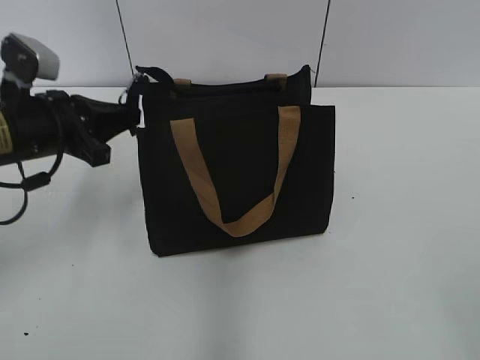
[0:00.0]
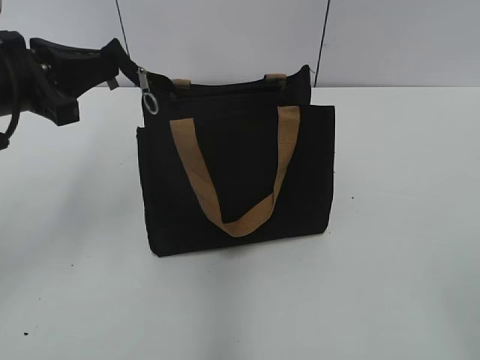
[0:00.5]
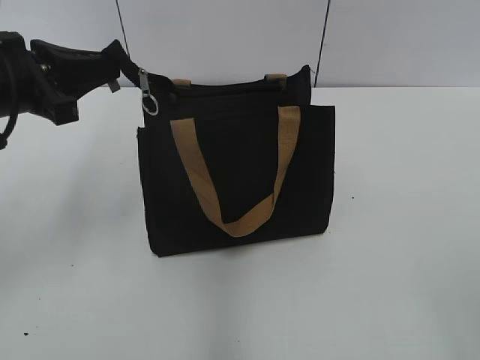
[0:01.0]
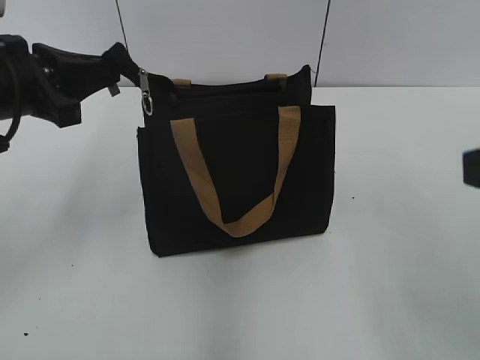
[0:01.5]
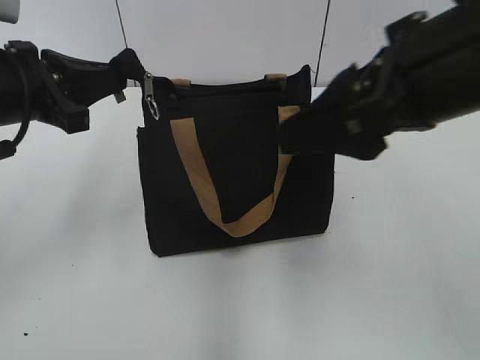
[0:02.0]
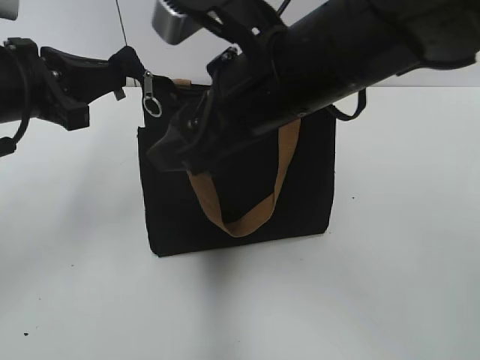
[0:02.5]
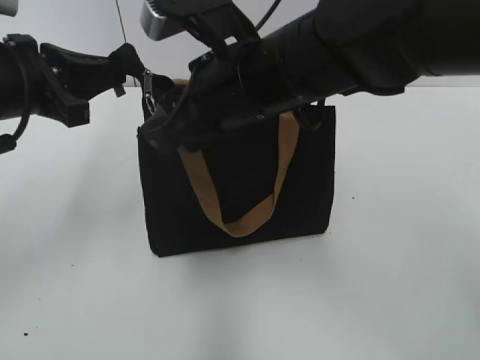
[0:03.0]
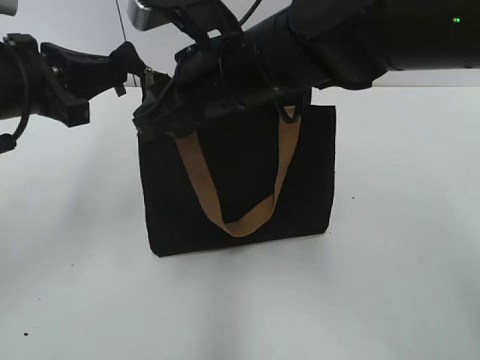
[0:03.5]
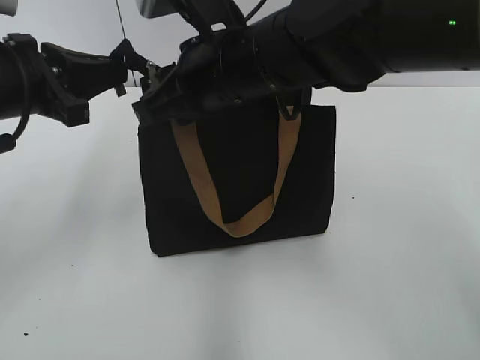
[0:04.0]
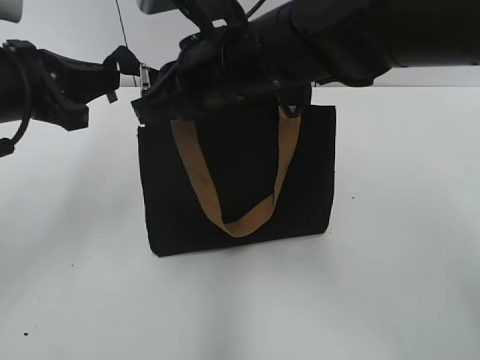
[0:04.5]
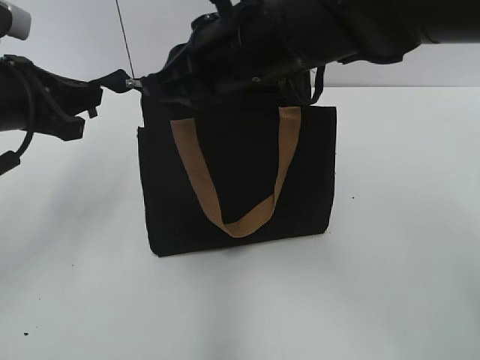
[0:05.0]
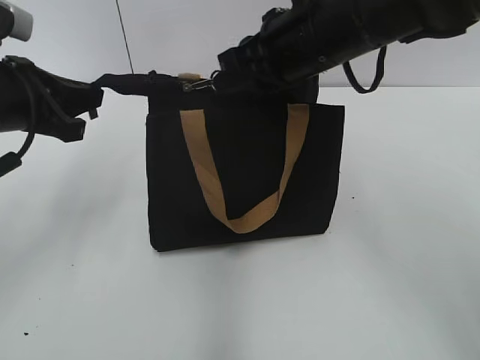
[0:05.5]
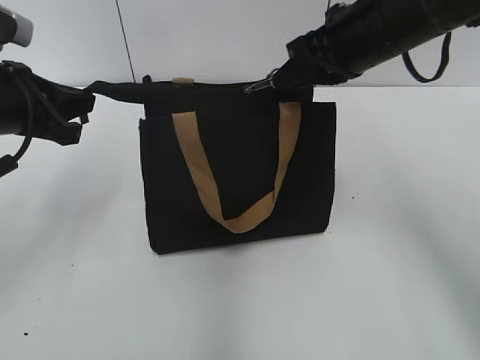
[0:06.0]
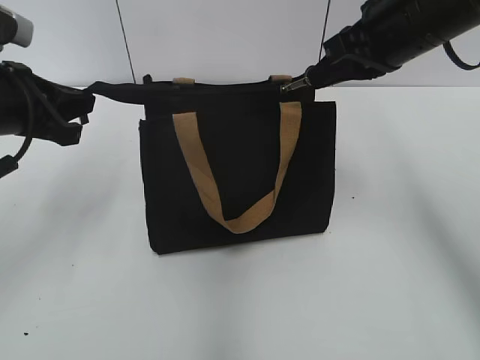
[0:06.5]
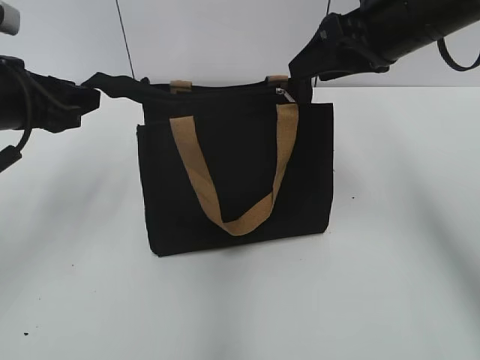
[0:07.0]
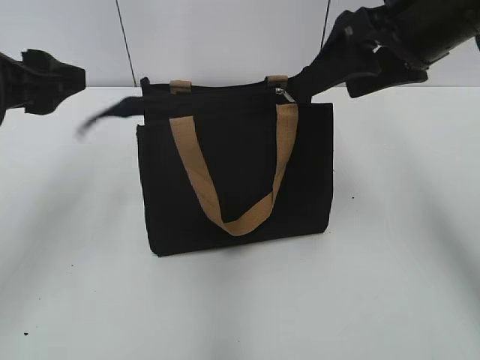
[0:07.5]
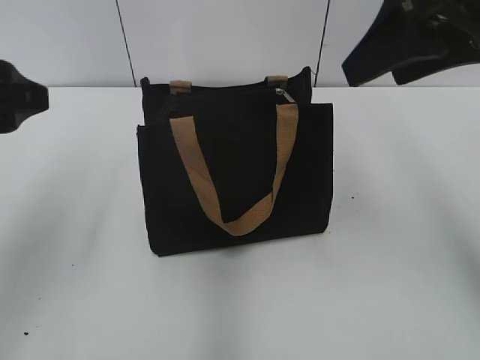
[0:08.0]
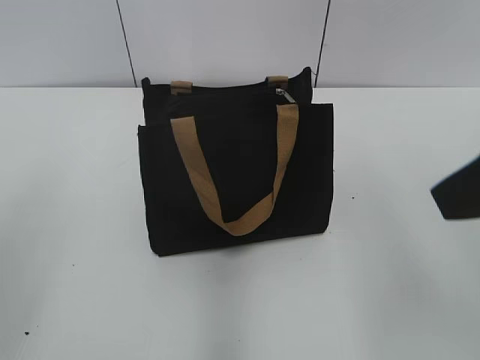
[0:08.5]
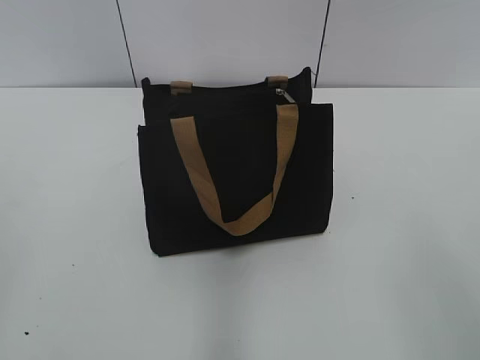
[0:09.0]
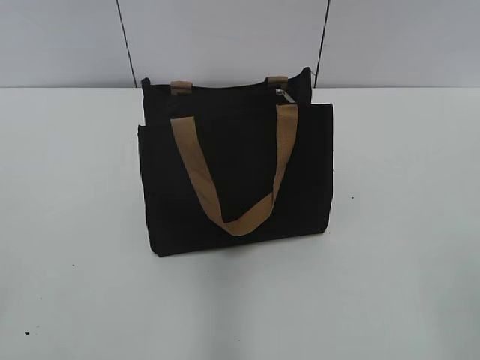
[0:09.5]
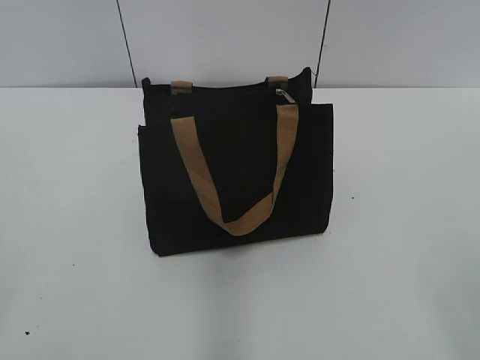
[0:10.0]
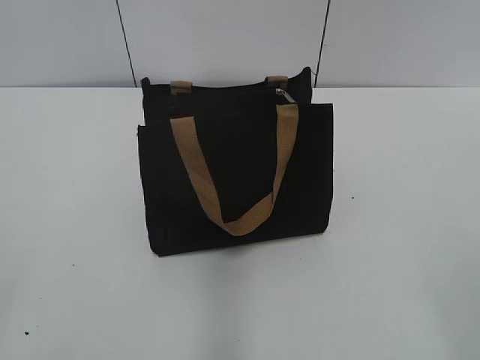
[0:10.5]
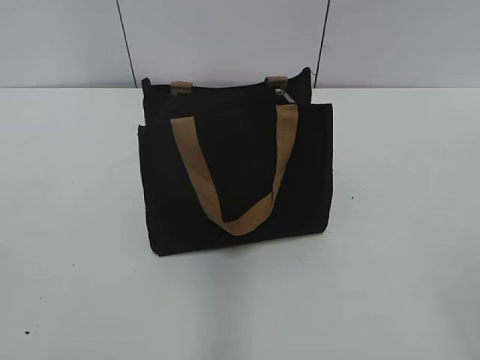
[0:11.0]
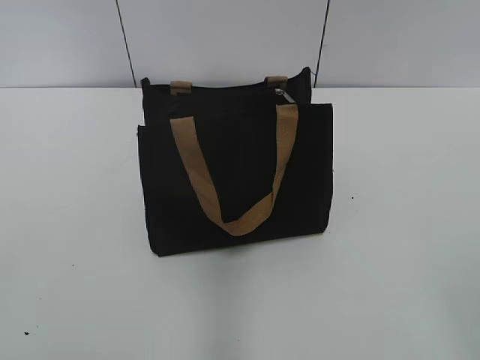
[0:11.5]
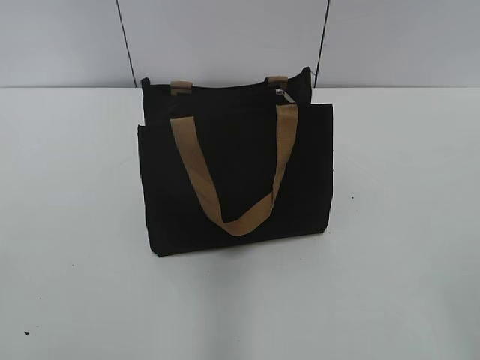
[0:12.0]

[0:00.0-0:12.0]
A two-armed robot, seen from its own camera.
Step, 0:00.0 to 0:06.5: Zip up the bag with your right hand.
Step, 0:07.0 to 0:07.5: Grab the zipper with your left hand.
0:00.0 to 0:02.0: The right gripper is displaced forward and to the left by approximately 25 cm. Meanwhile the left gripper shifts approximately 10 cm upward.
0:02.0 to 0:04.0: The right gripper moves to the left, forward and downward, about 20 cm, and closes.
0:04.0 to 0:06.0: The right gripper heads to the right, covering approximately 15 cm.
0:06.0 to 0:08.0: The right gripper goes approximately 10 cm upward, backward and to the right, and opens. The left gripper shifts roughly 10 cm backward and upward, and opens.
0:08.0 to 0:10.0: The left gripper shifts about 25 cm backward and to the left; the right gripper heads backward, covering roughly 25 cm.

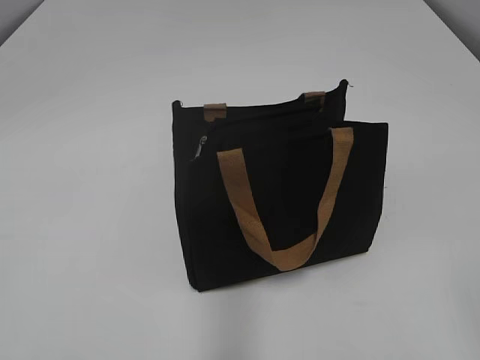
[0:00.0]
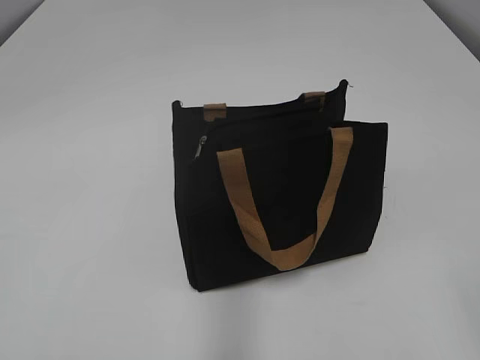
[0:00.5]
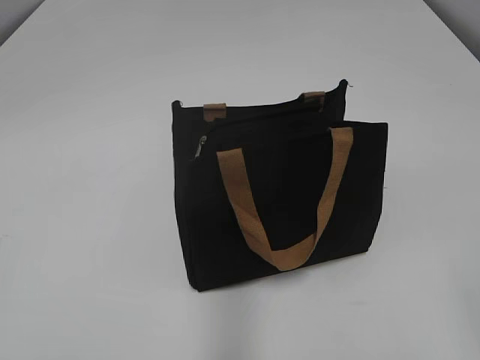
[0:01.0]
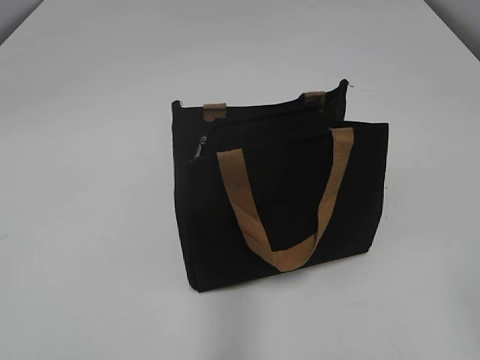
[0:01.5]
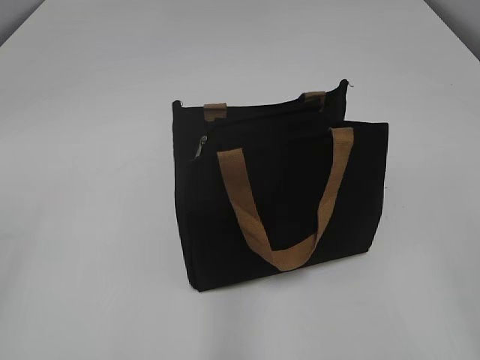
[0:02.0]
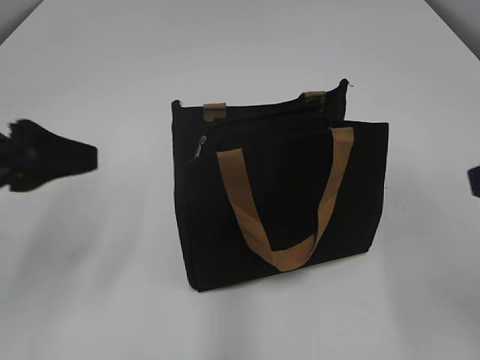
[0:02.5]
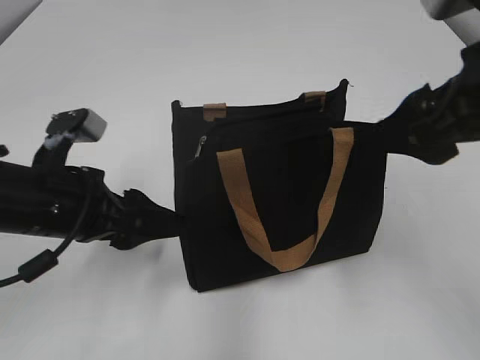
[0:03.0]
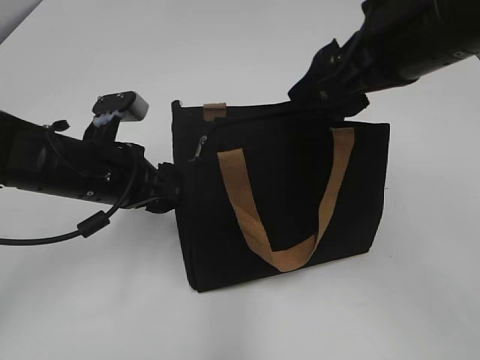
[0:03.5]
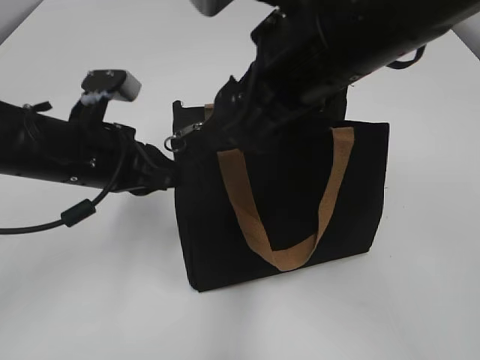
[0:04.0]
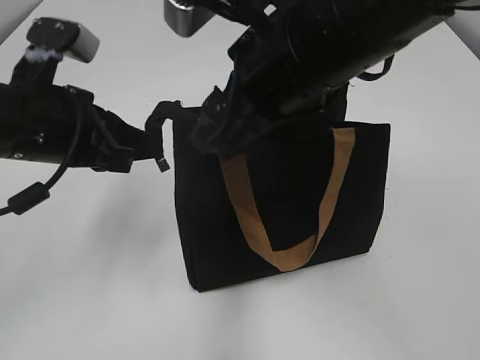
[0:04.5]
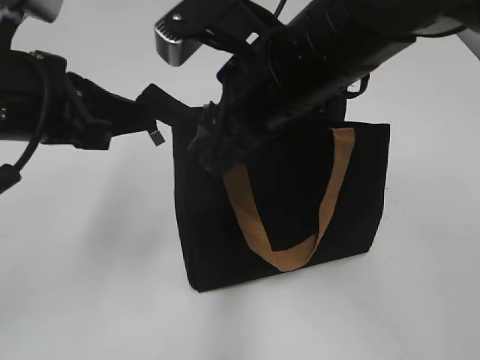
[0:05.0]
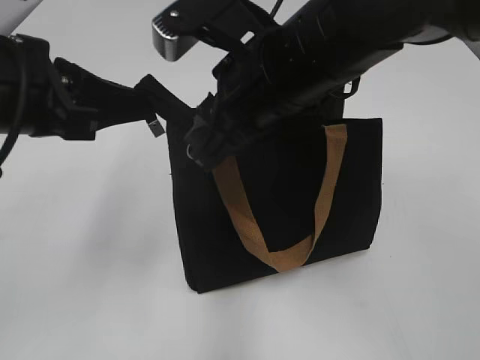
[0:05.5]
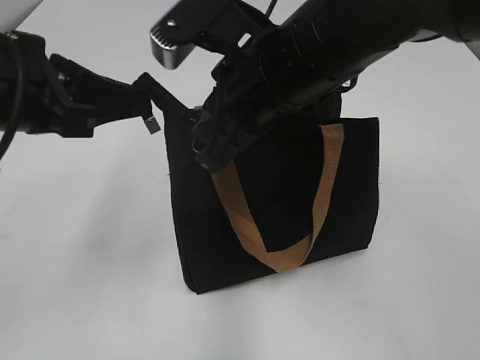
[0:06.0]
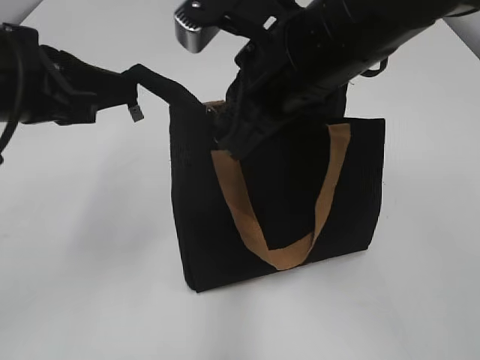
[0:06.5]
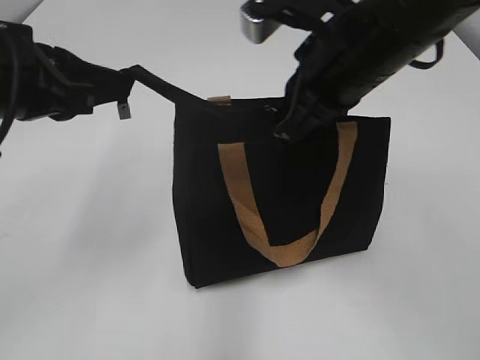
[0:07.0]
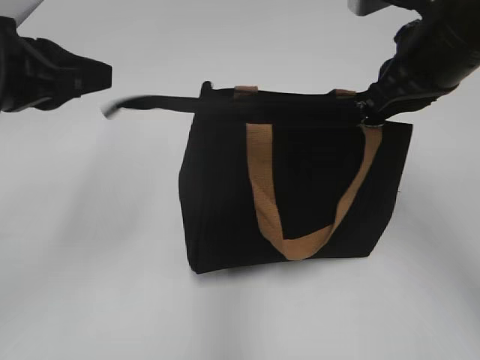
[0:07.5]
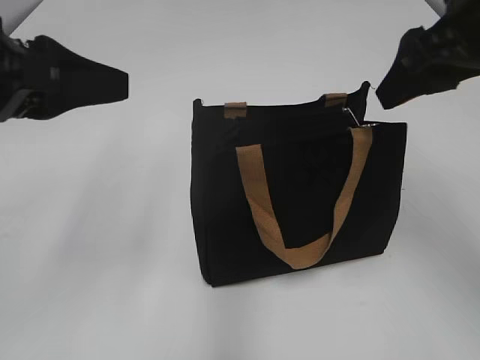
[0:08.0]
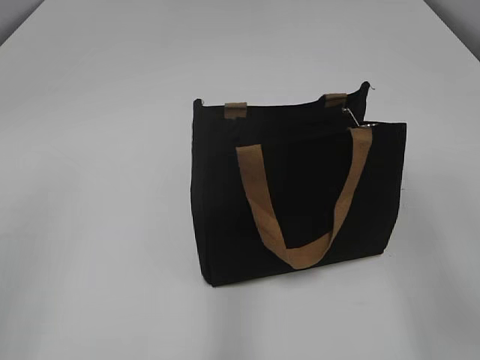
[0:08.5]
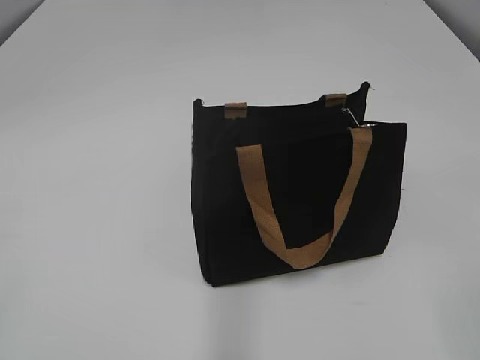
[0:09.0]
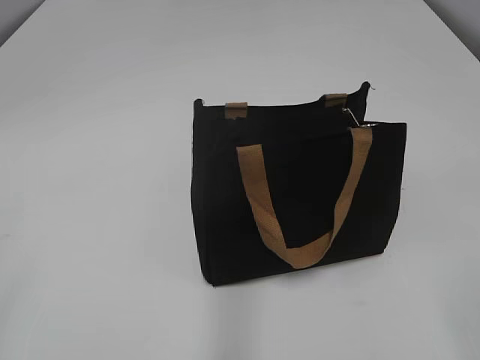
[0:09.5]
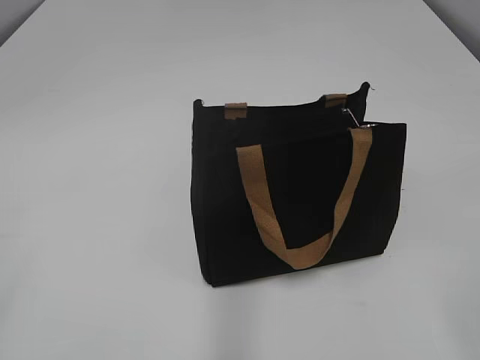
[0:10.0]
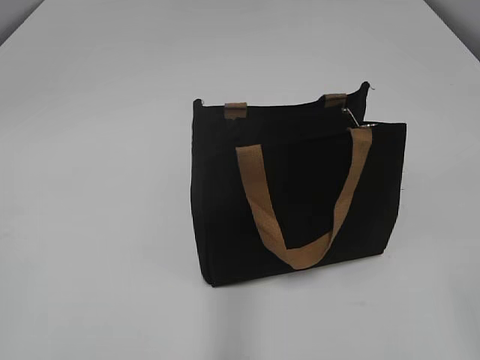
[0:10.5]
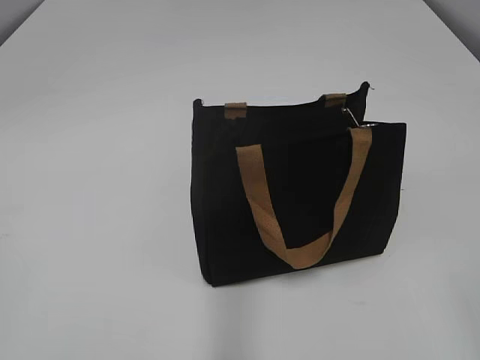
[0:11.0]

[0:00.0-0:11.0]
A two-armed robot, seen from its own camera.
Step, 0:00.0 to 0:07.0: Grab the zipper with your left hand.
0:02.0 to 0:03.5: The right gripper goes approximately 25 cm forward and to the left; the left gripper travels forward, downward and to the right by about 35 cm.
0:03.5 to 0:05.5: The left gripper shifts about 15 cm upward and backward, and closes its fingers. The right gripper heads to the left, covering approximately 10 cm, and closes.
0:05.5 to 0:07.5: The right gripper heads to the right, covering some 15 cm, and closes up.
0:07.5 to 0:09.0: The right gripper goes some 30 cm backward, and opens. The left gripper goes some 25 cm backward and to the left, and opens.
